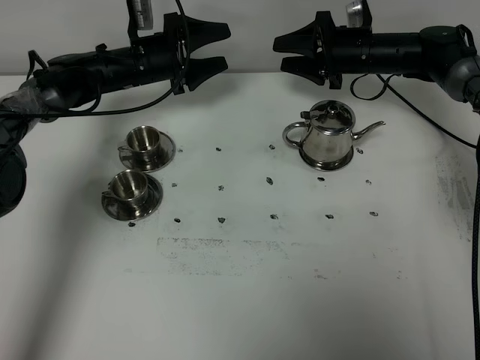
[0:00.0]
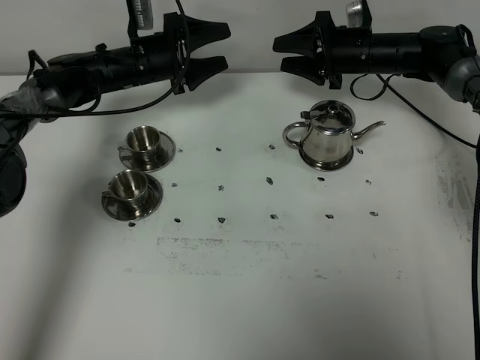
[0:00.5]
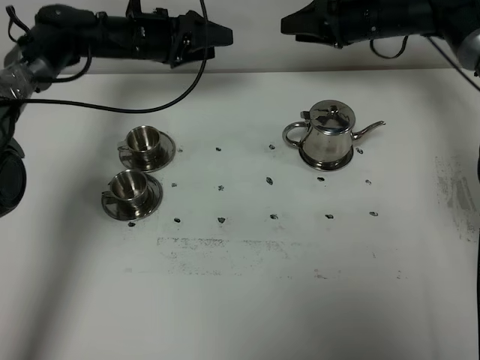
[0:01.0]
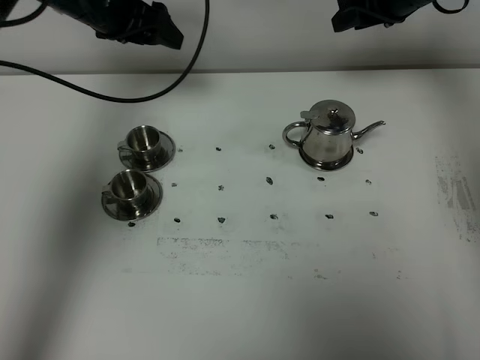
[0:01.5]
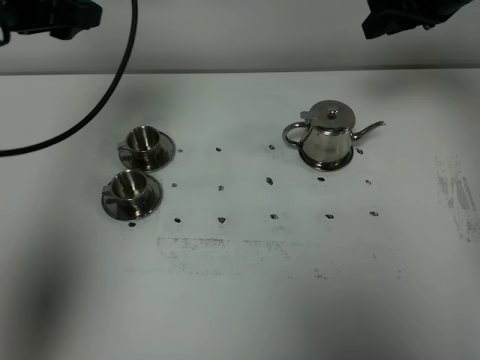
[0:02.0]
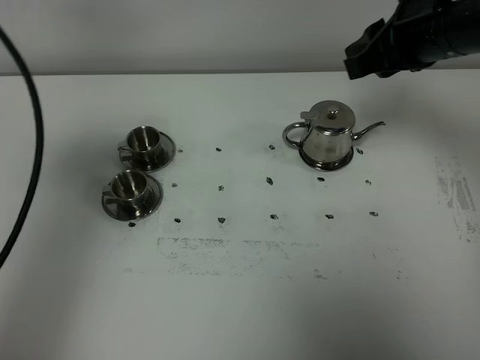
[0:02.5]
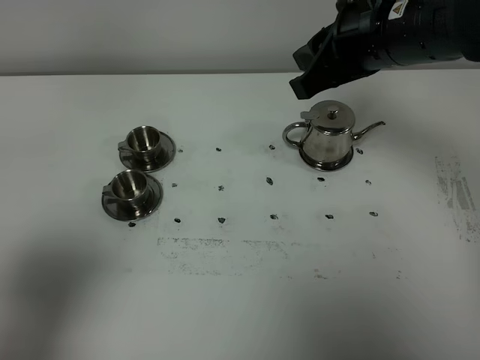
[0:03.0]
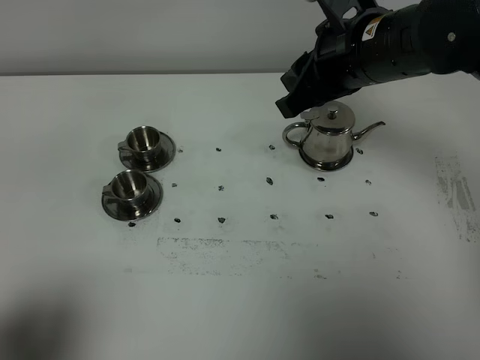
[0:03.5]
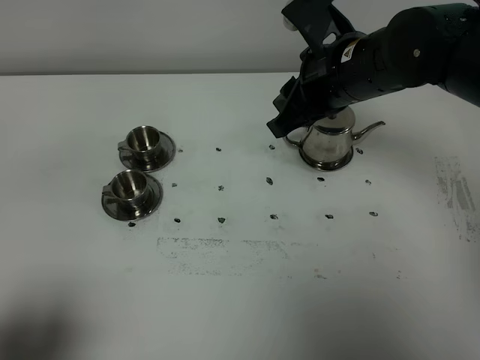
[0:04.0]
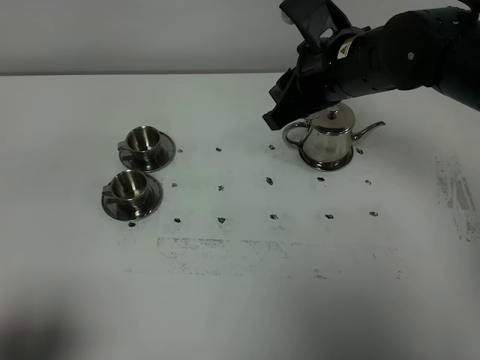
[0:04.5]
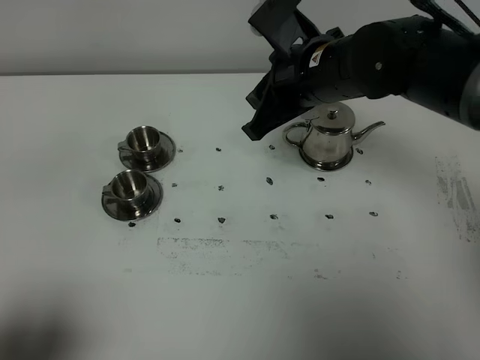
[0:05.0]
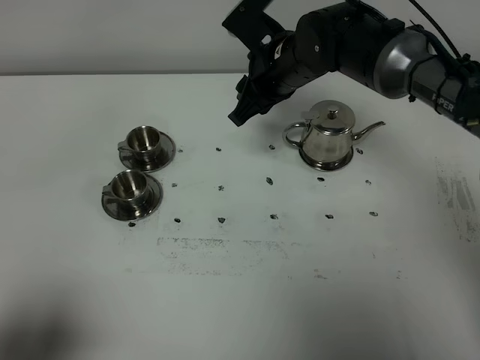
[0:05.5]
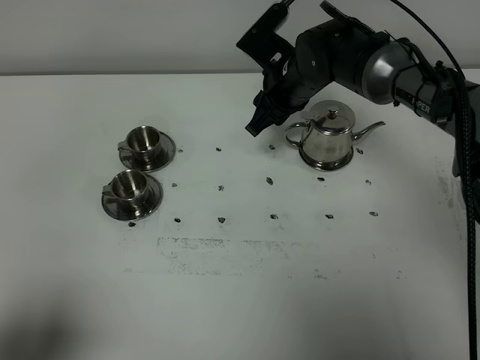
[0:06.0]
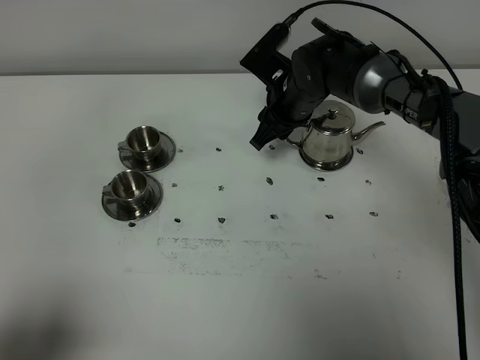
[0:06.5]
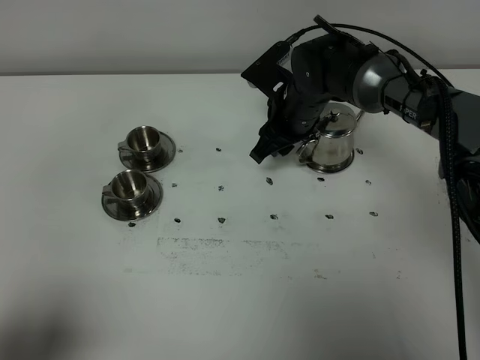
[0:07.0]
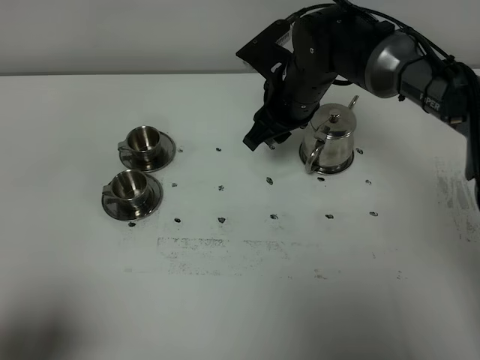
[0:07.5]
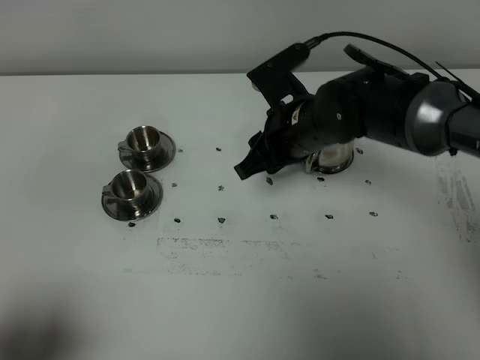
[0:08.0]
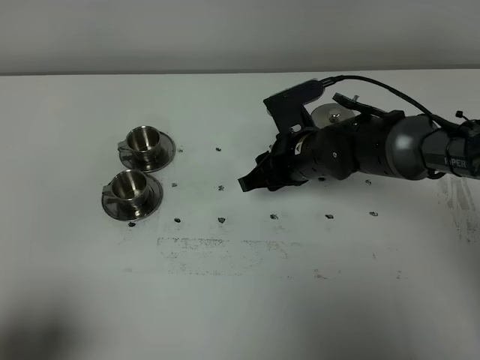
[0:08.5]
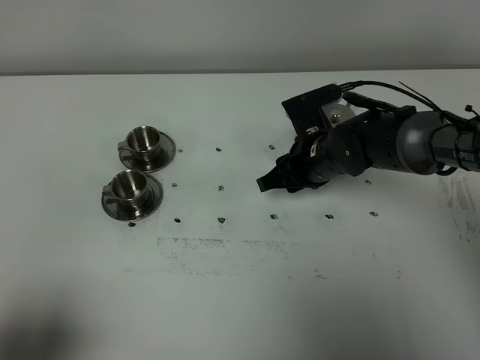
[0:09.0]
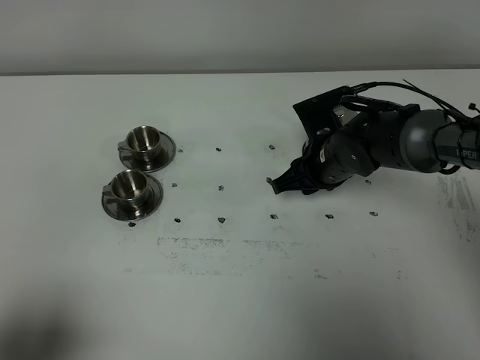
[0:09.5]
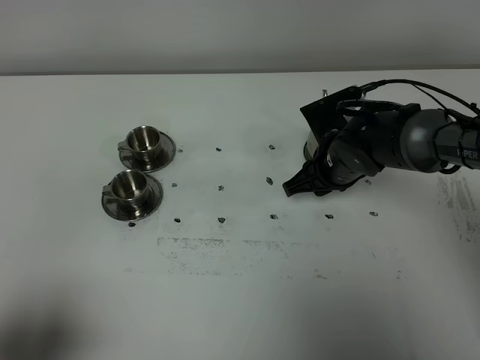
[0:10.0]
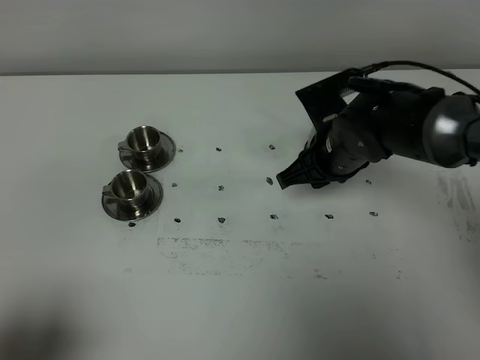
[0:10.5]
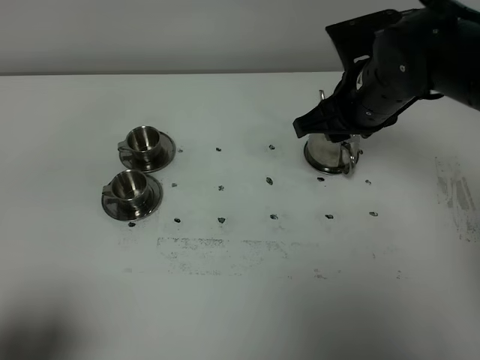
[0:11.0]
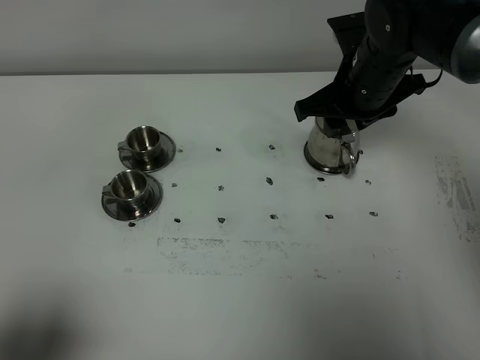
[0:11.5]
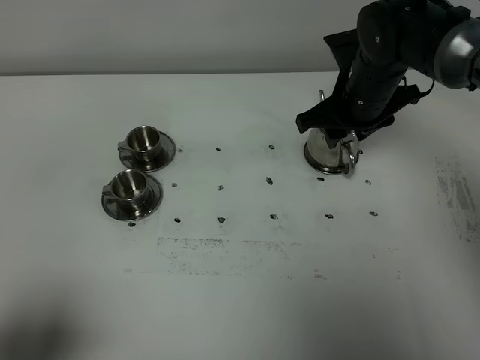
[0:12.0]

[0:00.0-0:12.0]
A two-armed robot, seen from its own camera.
Task of the whole recording: grasp the stainless steel teapot and pour the tea into the two stainless steel teacups one by one, put the stainless steel teapot back in its original place.
0:00.0 to 0:02.0: Both grippers move upward and backward, roughly 25 cm. The right gripper closes its fingers.
0:02.0 to 0:04.0: The left gripper shifts some 35 cm backward, while the right gripper moves to the left, backward and downward, some 15 cm.
0:04.0 to 0:06.0: The right gripper travels forward and downward by approximately 15 cm.
0:06.0 to 0:08.0: The right gripper shifts about 10 cm backward.
0:08.0 to 0:10.0: The right gripper moves downward and to the right, some 10 cm.
0:10.0 to 0:12.0: The right gripper travels upward by about 10 cm.

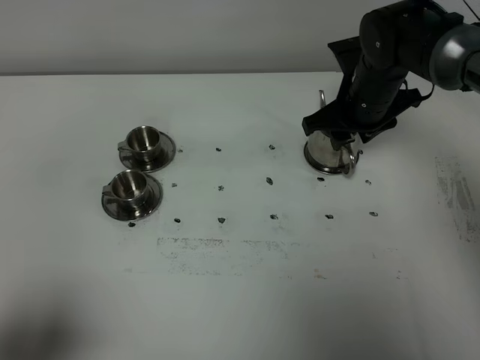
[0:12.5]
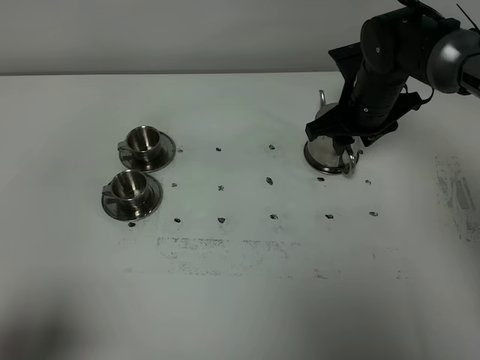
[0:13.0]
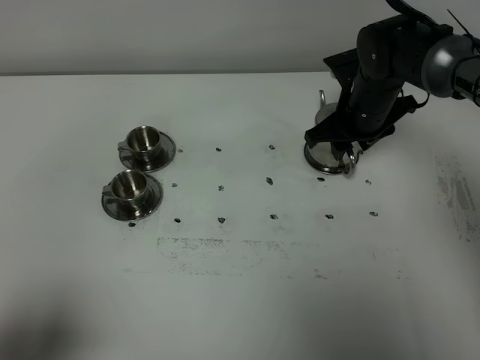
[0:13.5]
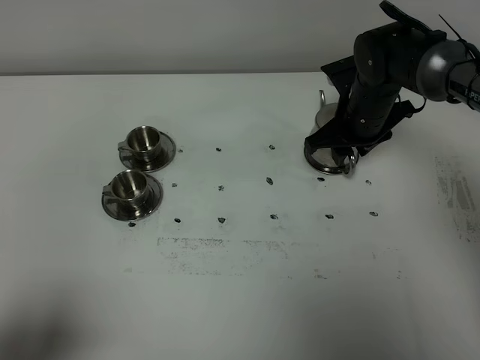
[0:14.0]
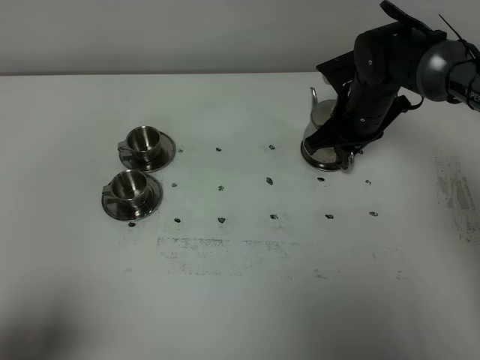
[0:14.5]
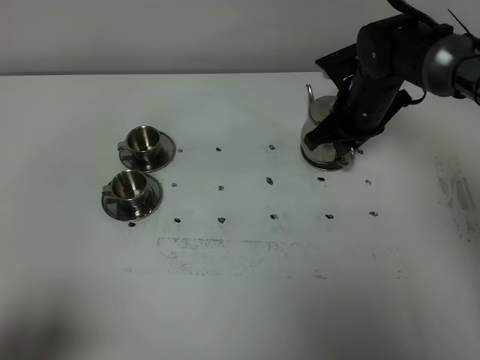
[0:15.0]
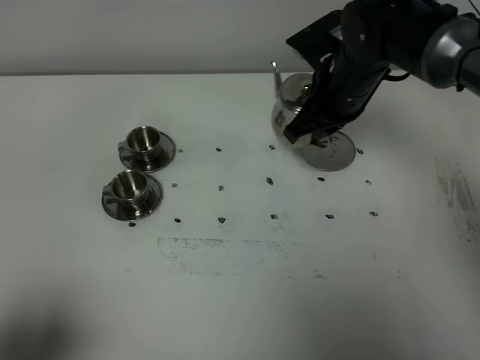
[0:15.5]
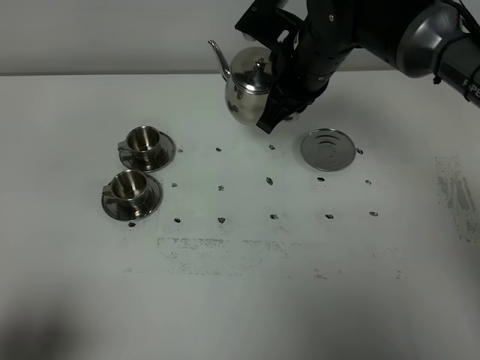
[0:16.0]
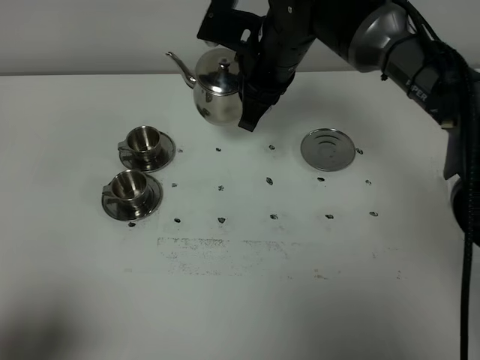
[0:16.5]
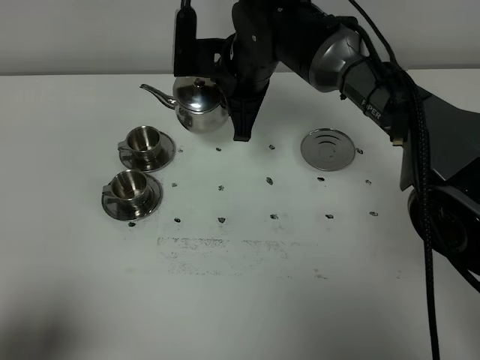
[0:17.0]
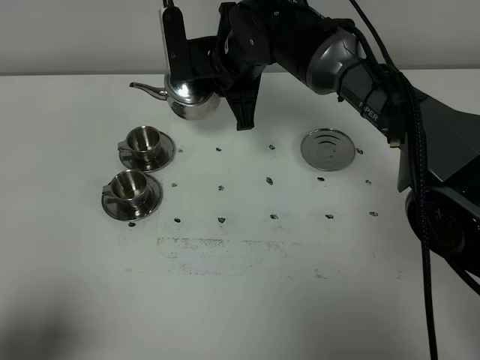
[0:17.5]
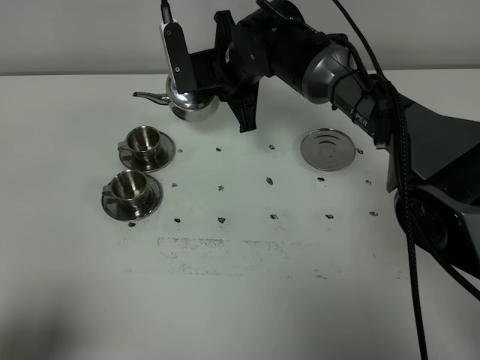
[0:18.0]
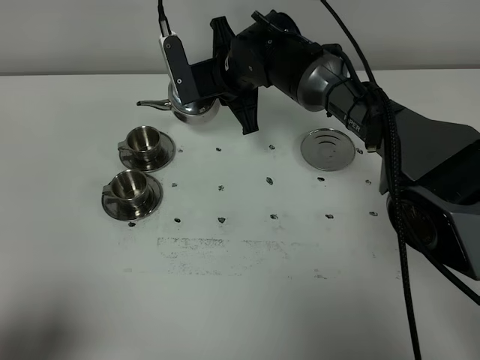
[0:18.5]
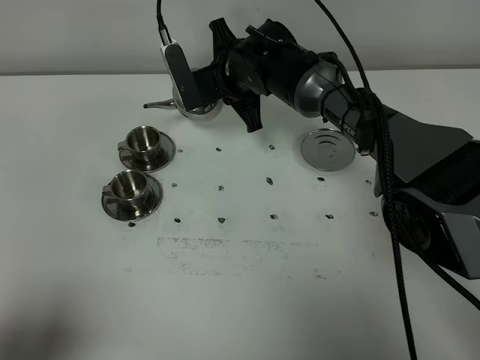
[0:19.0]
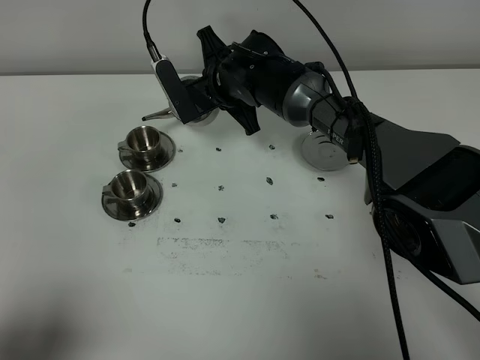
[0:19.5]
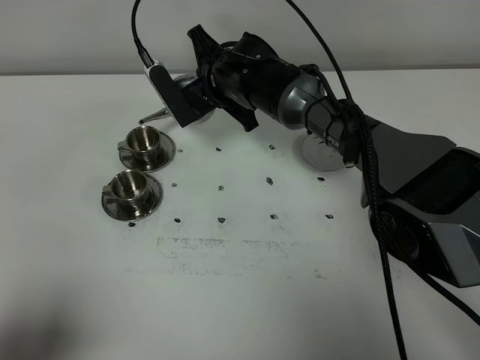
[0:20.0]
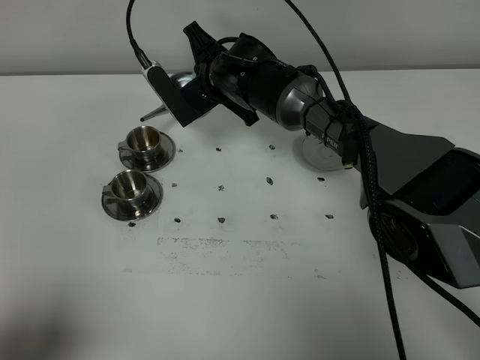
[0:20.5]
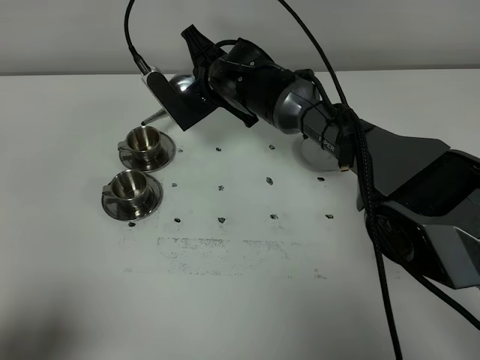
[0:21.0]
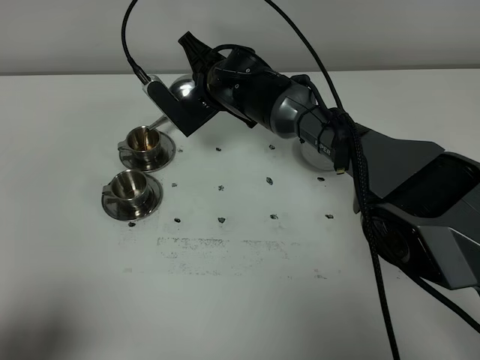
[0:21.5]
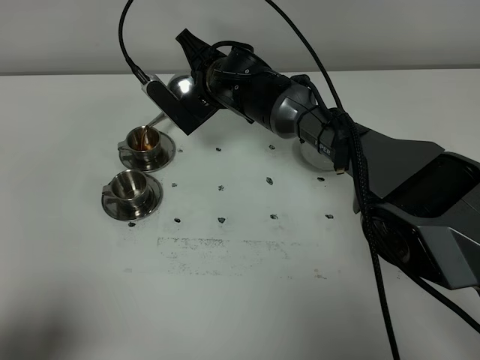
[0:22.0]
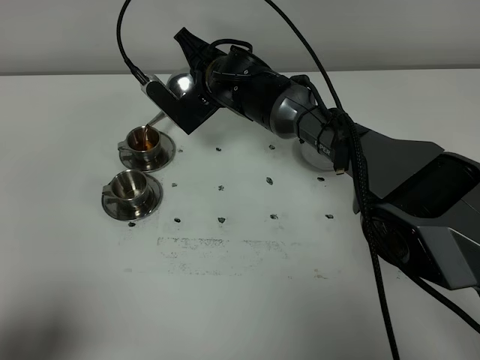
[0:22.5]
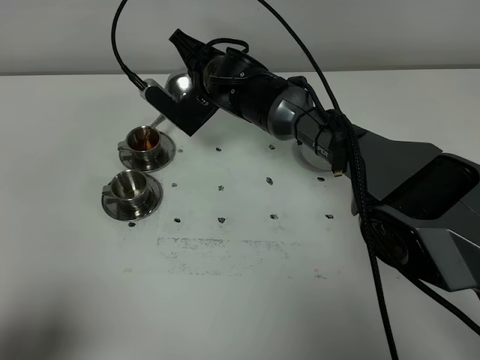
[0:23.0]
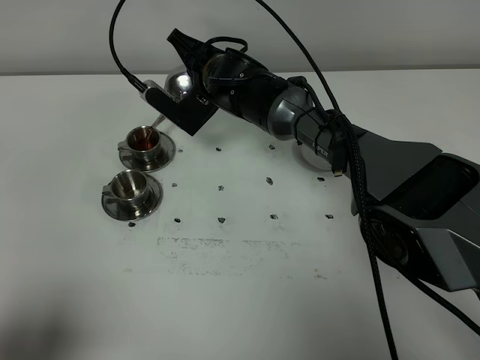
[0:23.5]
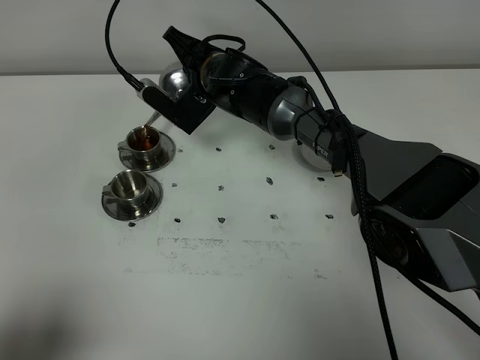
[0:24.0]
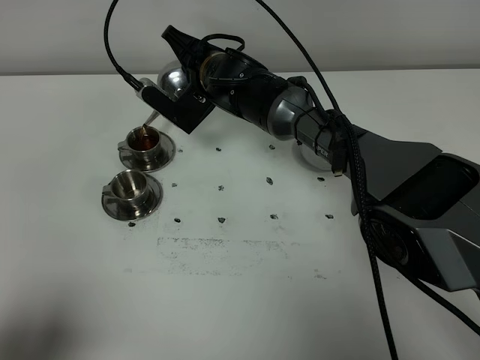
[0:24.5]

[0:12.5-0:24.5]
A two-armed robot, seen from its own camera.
Task of the whole recording: grasp the stainless steel teapot and pour the tea into the two stainless steel teacups one by one, put the stainless steel teapot back in its original place.
Step, 0:12.5 to 0:15.0: Pick up the teapot with the right gripper.
0:12.5 to 0:14.5: The right gripper closes up.
0:14.5 to 0:16.5: The right gripper moves to the left and upward, about 15 cm.
0:16.5 to 0:18.5: The right gripper shifts some 5 cm downward.
0:20.5 to 0:24.5: There are only small adjustments of the grippers.

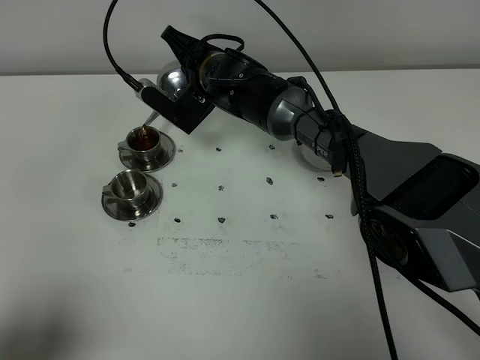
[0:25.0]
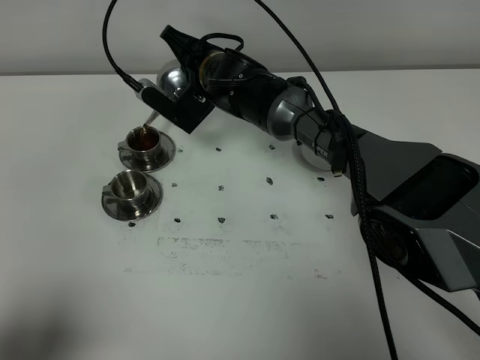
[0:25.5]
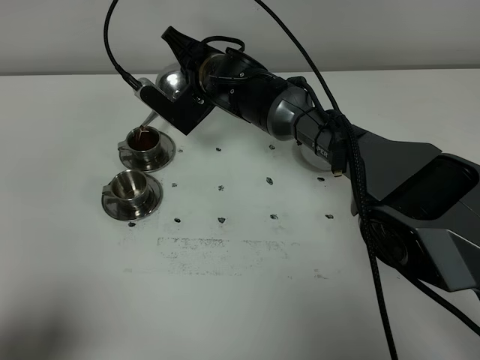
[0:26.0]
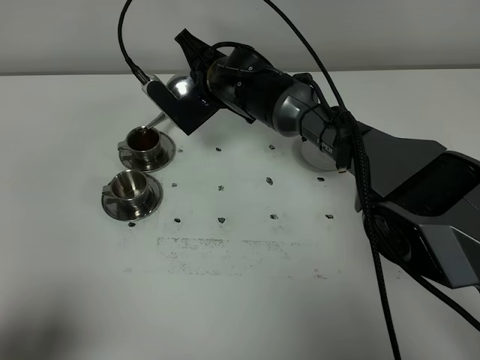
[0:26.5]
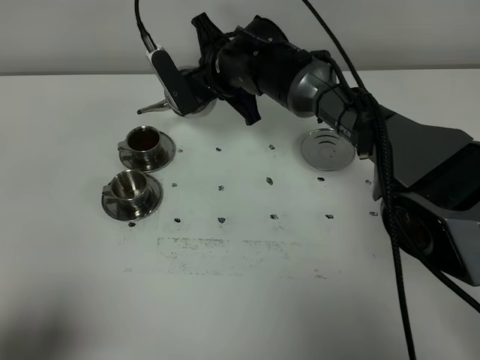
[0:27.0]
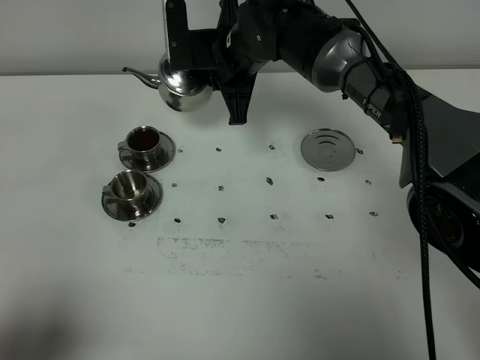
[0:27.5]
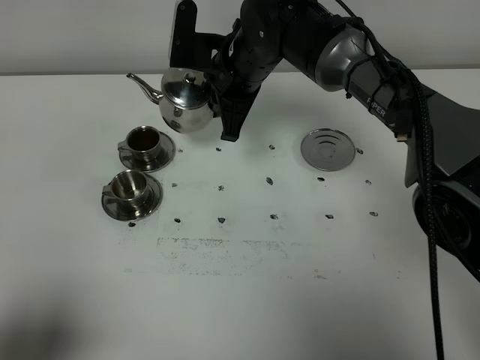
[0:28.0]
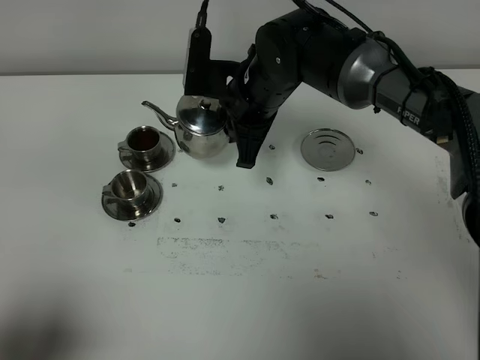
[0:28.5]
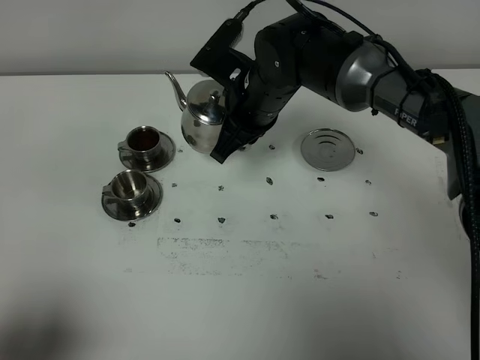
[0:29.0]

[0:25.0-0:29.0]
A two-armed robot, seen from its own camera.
Task of the whole recording: grasp the stainless steel teapot and pour the tea into the two stainless steel teacups one by one, put the stainless steel teapot back in its original place.
0:27.0 to 0:29.0: The right gripper goes some 5 cm backward.
